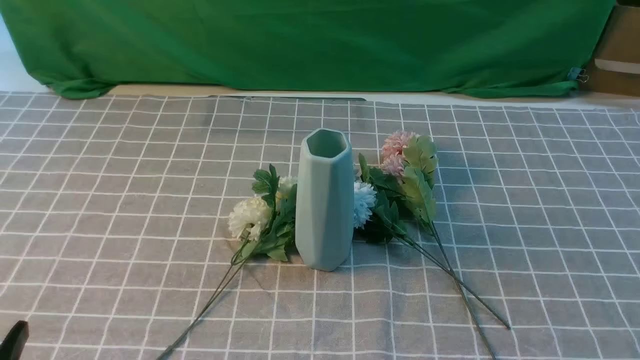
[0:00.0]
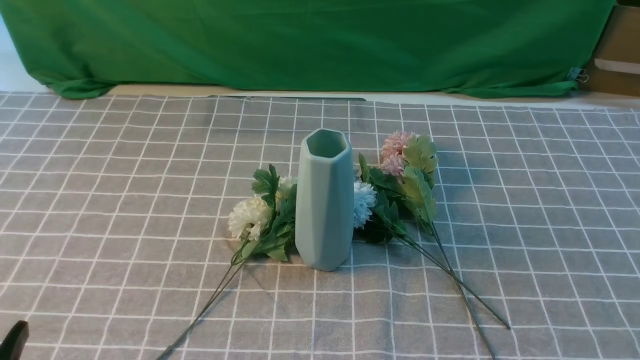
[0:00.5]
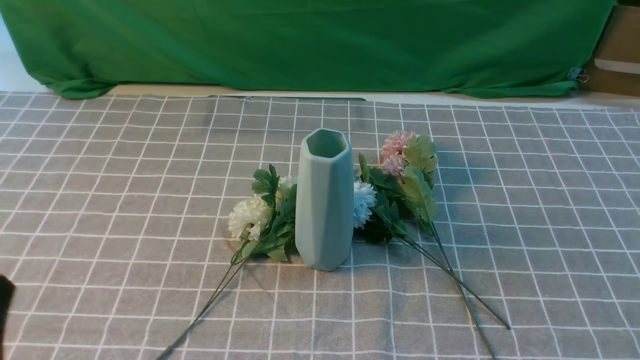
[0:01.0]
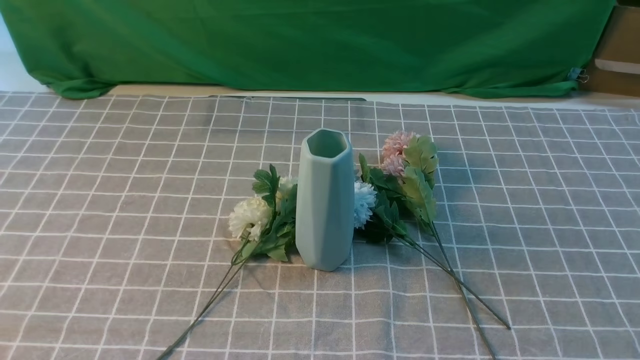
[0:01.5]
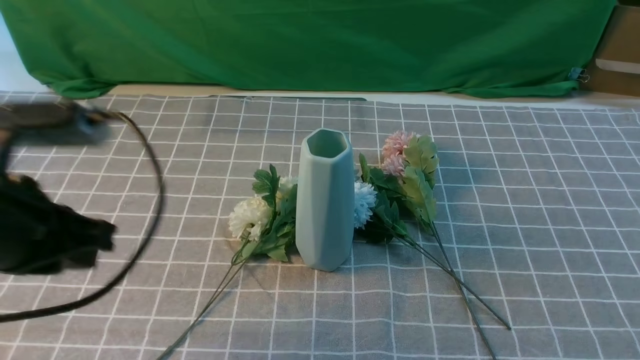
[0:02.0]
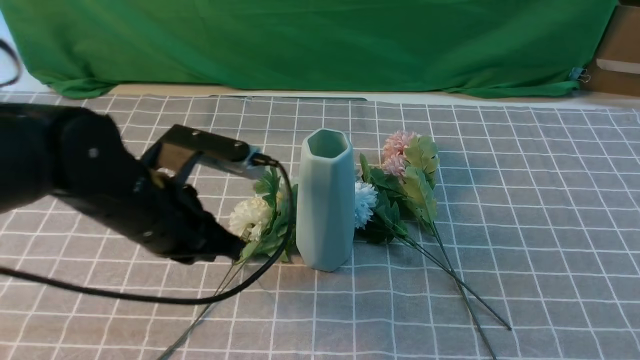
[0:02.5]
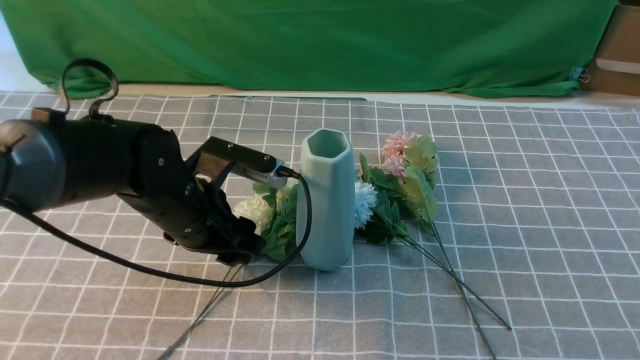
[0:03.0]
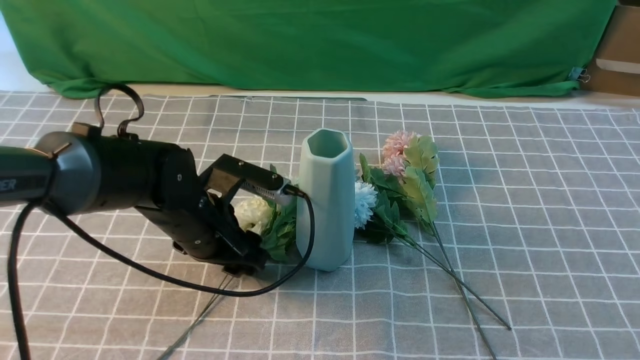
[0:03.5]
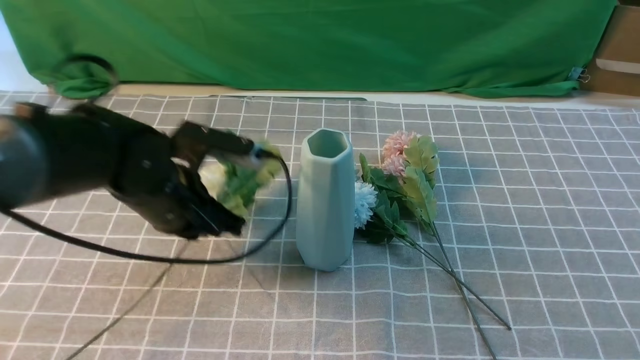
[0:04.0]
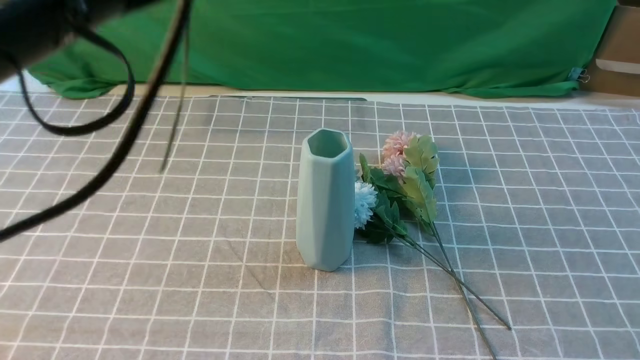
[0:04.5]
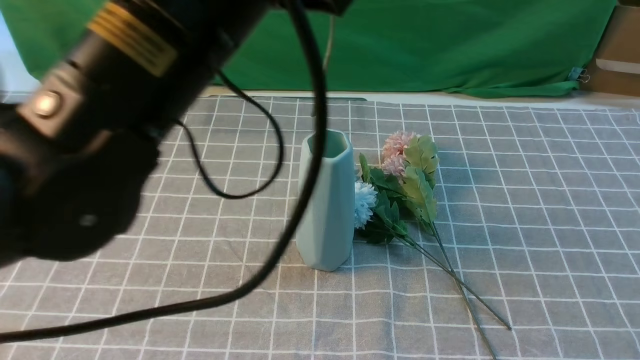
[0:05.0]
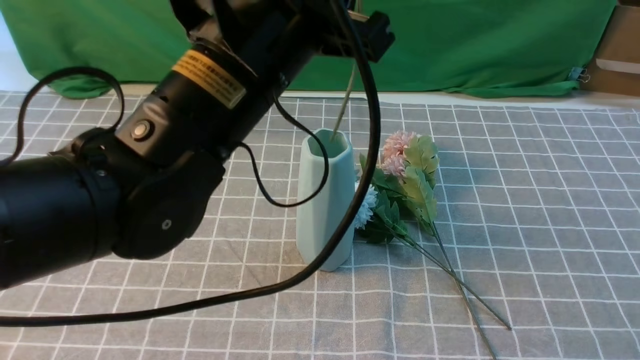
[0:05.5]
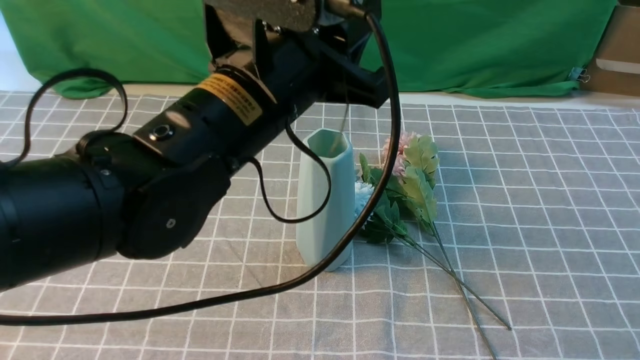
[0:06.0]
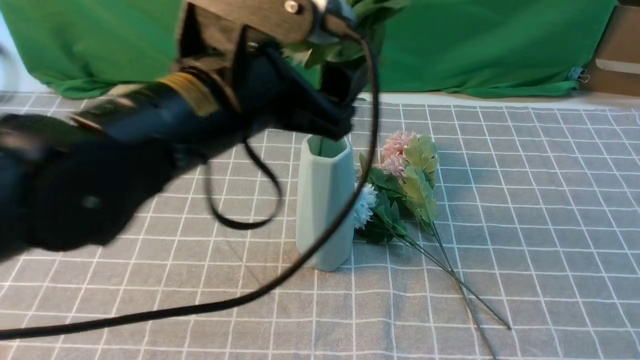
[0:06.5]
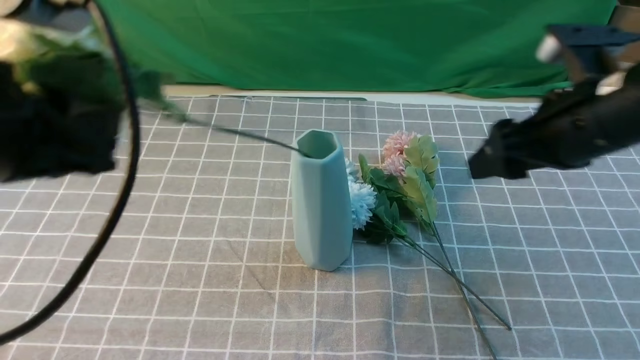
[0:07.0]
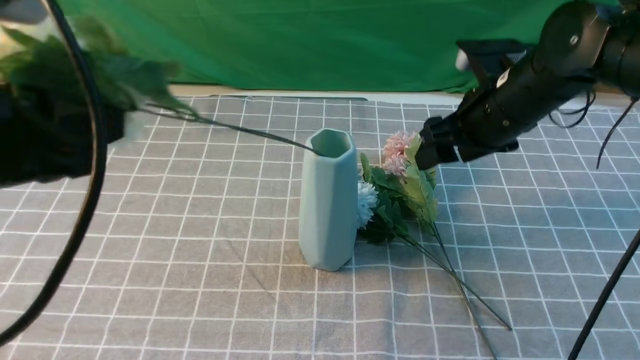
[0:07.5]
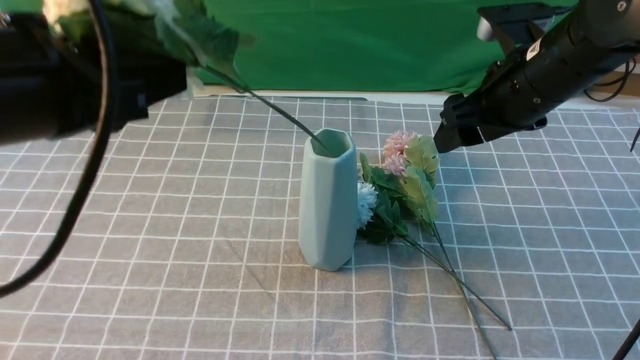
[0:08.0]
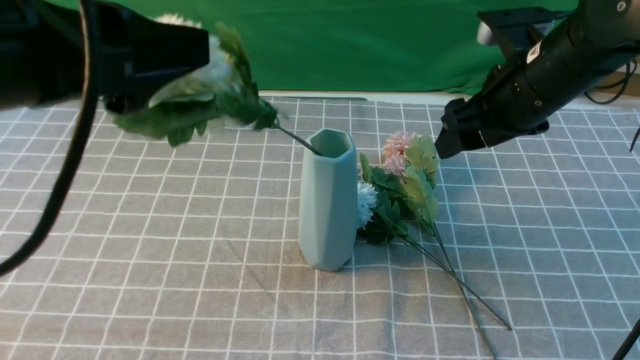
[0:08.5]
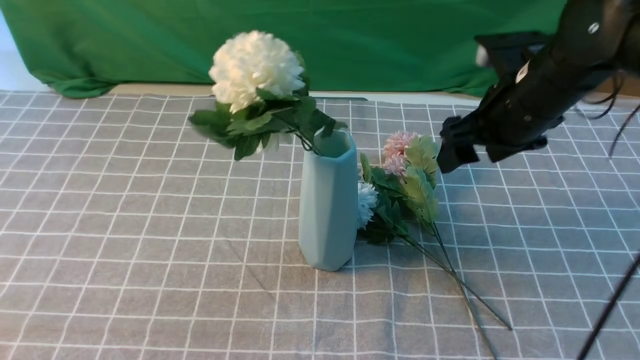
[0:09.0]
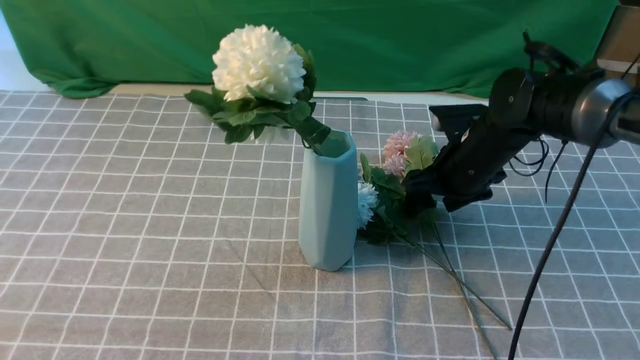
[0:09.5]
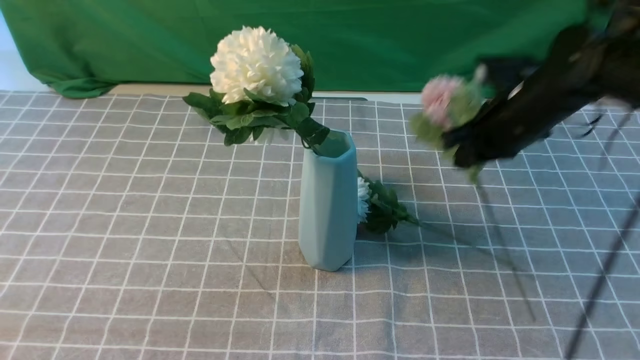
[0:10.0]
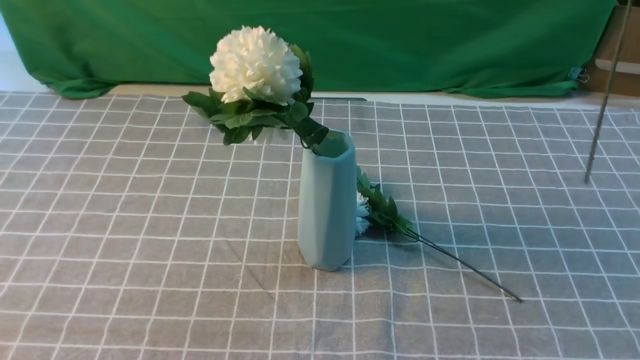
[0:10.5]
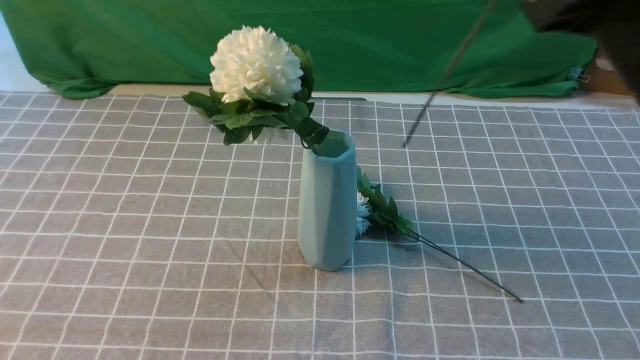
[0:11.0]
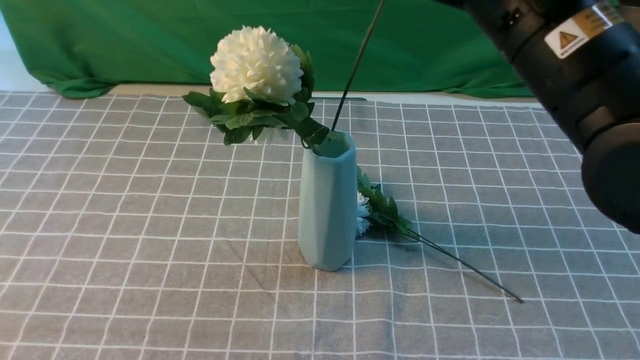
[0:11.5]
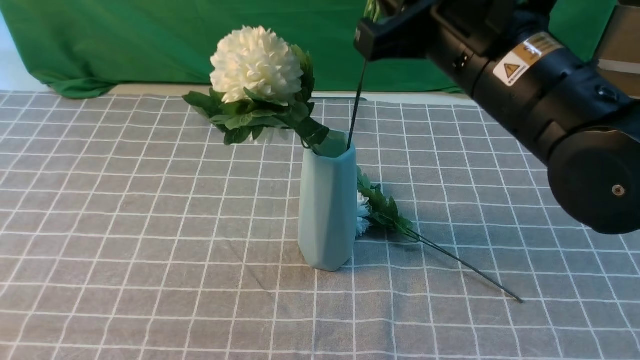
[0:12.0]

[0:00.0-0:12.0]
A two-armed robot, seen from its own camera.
Task of the whole recording: insert the flowers into the vase on the table with the grey tablecloth.
Step, 0:00.0 to 0:03.5: use the left arm to grab a bunch of fresh flowers.
Step, 0:04.0 to 0:08.5: use the left arm to insert the flowers into the vase.
Step, 0:09.0 to 0:09.5: use the right arm to grab a bunch of fresh flowers.
0:00.0 to 0:02.0: The left gripper heads forward and upward, covering about 20 cm, and closes its fingers.
0:02.0 to 0:04.0: The right gripper heads upward and forward, covering roughly 10 cm, and closes its fingers. The left gripper moves forward, downward and to the right, some 15 cm, and opens, then closes once more.
0:04.0 to 0:06.0: The left gripper goes some 15 cm upward, to the right and backward, and opens its fingers.
0:06.0 to 0:08.0: The left gripper goes about 15 cm to the left, backward and upward, and opens and closes again, while the right gripper travels forward by some 25 cm, and opens its fingers.
0:08.0 to 0:10.0: The right gripper reaches some 15 cm downward, then returns, and closes up, while the left gripper moves backward and to the left, approximately 10 cm, and closes up.
0:10.0 to 0:12.0: The right gripper moves backward, to the left and upward, roughly 20 cm.

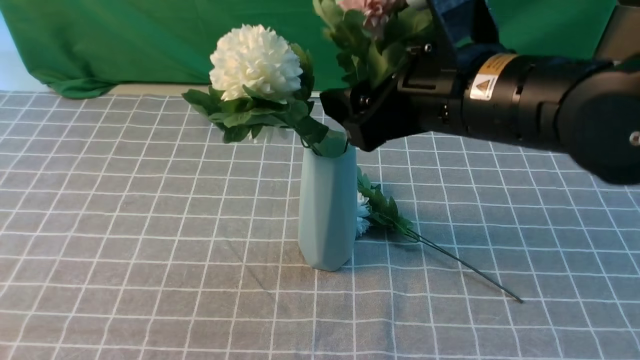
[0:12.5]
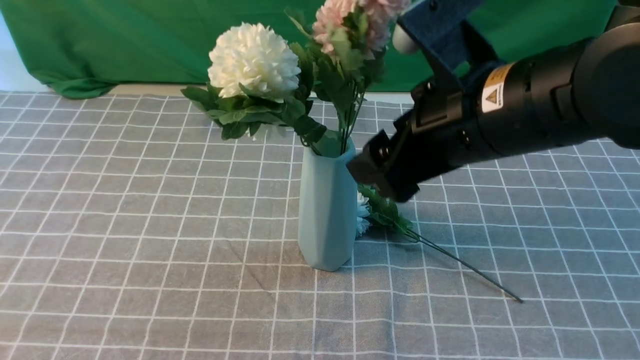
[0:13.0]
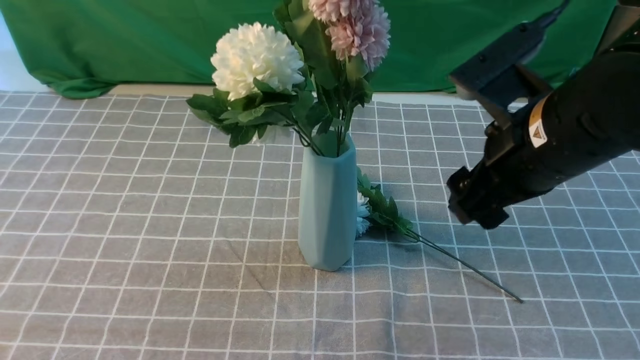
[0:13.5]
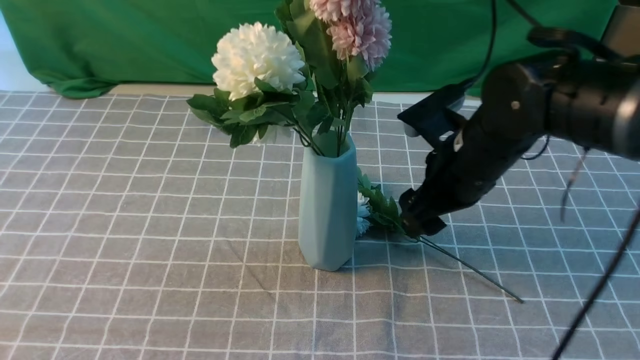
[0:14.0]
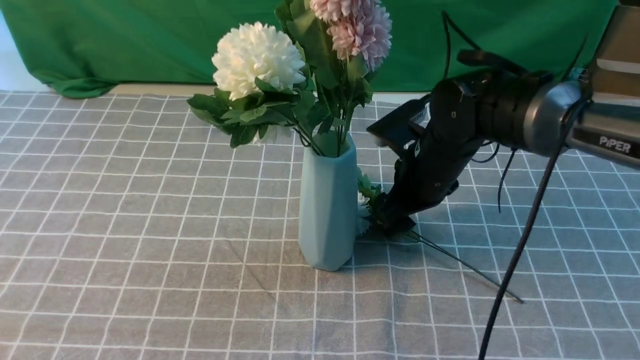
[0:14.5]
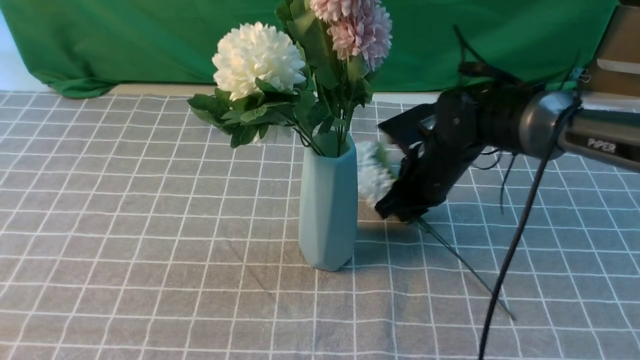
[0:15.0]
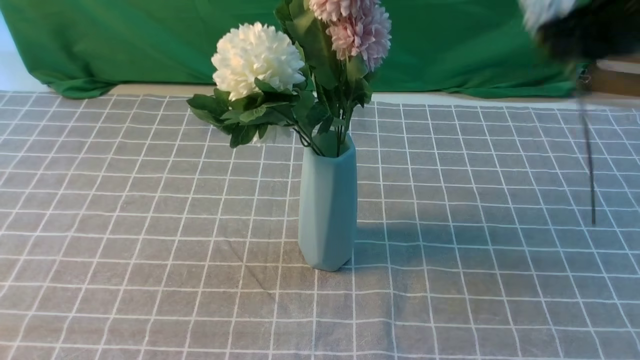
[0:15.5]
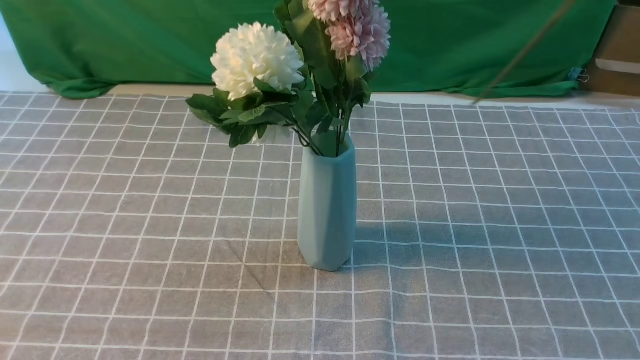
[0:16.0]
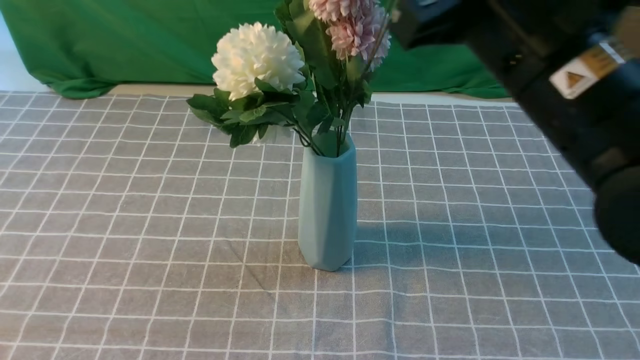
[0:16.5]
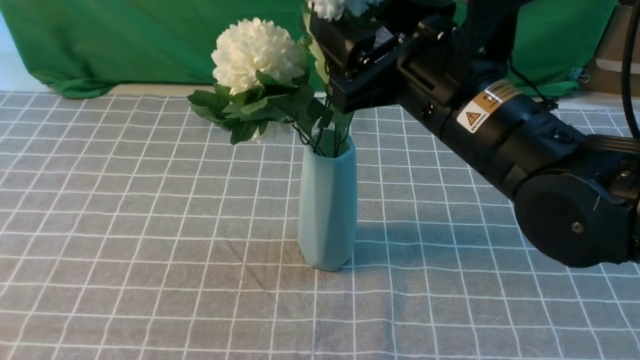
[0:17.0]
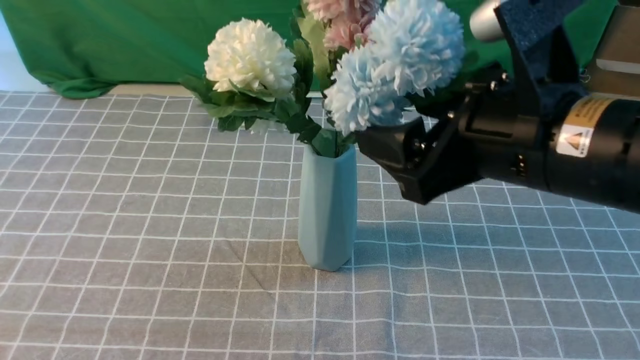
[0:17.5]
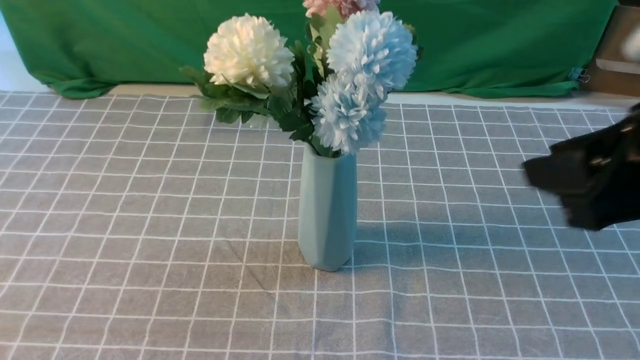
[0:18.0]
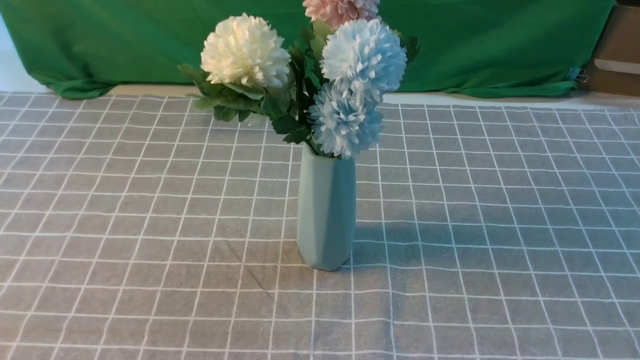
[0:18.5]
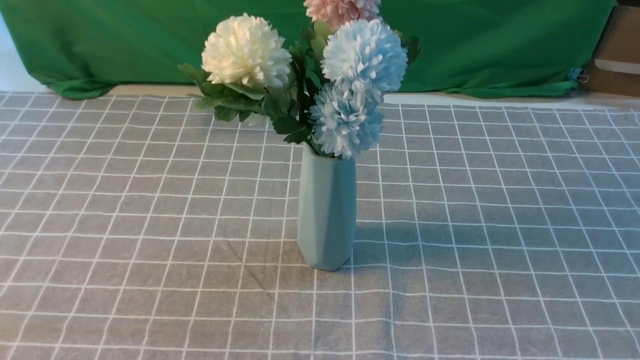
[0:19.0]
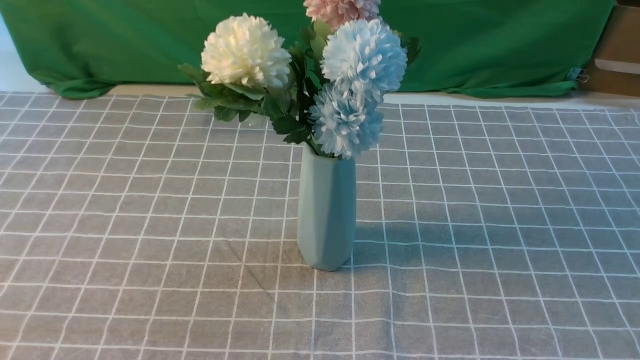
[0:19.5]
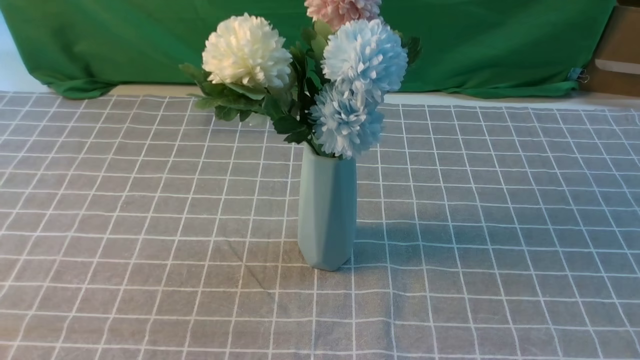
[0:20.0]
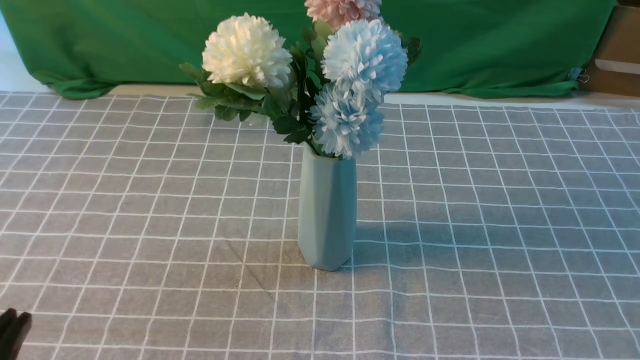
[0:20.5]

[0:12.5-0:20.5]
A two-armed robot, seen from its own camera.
Task of the whole recording: insert the flowers into the vase on the table with the grey tablecloth.
Step, 0:13.0 to 0:14.5: use the right arm to grab a bunch of fresh flowers.
Step, 0:15.5 to 0:17.5: use the right arm to insert the flowers into the vase.
0:12.5 to 0:14.5: The right gripper travels downward and forward by approximately 20 cm.
0:14.5 to 0:16.5: The right gripper travels upward and backward by about 25 cm, and closes its fingers.
0:16.5 to 0:18.5: The right gripper travels backward and to the right by some 25 cm, and opens and closes again, while the left gripper moves backward, some 10 cm.
0:18.5 to 0:20.5: The left gripper moves downward, about 20 cm.
